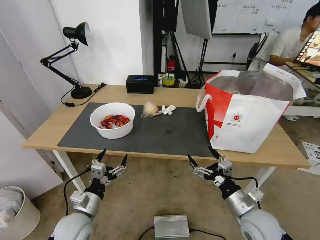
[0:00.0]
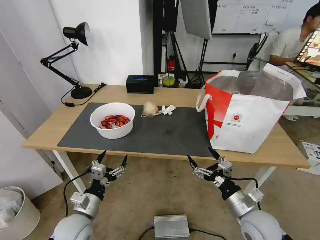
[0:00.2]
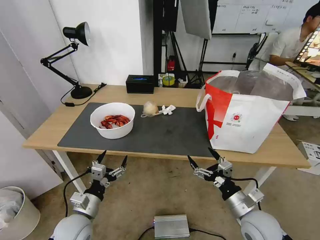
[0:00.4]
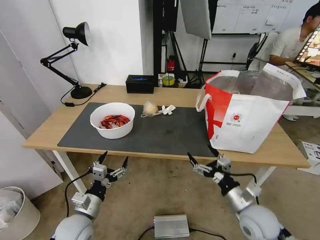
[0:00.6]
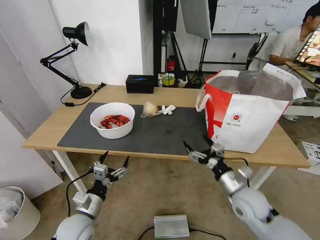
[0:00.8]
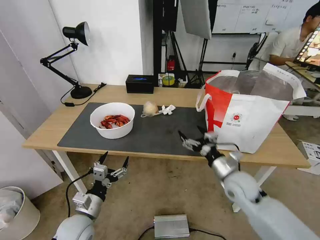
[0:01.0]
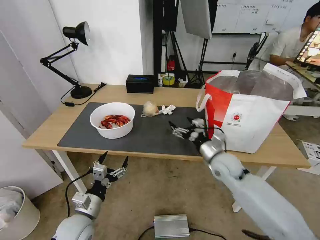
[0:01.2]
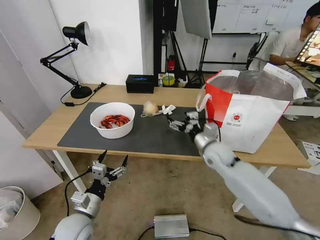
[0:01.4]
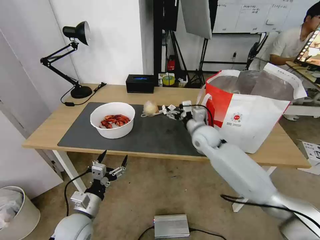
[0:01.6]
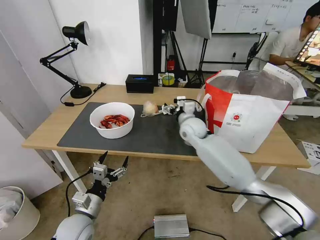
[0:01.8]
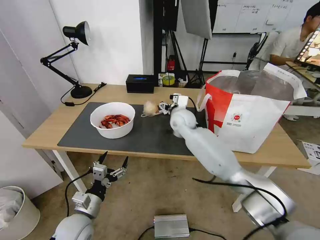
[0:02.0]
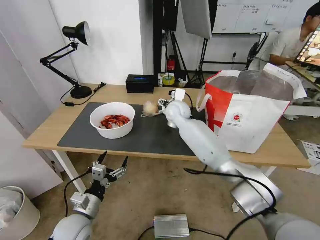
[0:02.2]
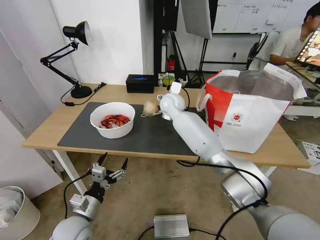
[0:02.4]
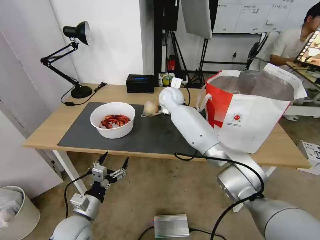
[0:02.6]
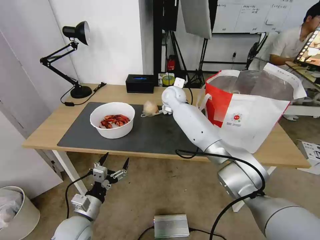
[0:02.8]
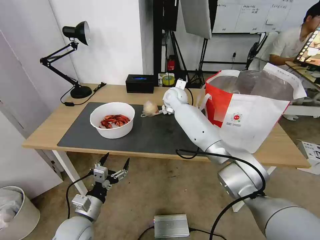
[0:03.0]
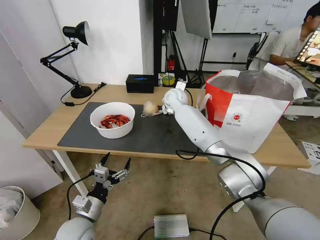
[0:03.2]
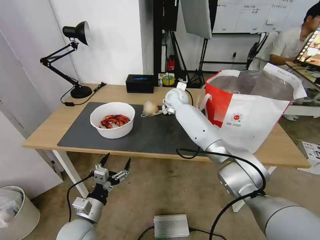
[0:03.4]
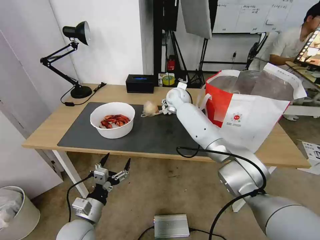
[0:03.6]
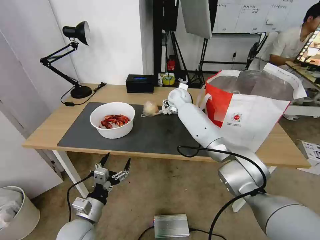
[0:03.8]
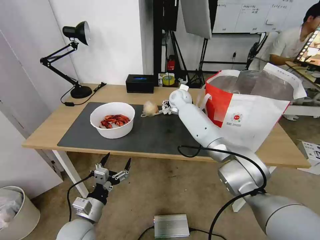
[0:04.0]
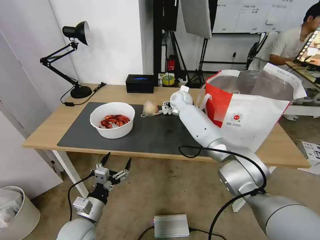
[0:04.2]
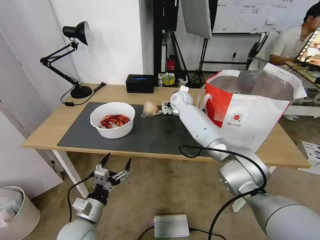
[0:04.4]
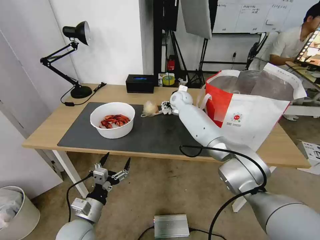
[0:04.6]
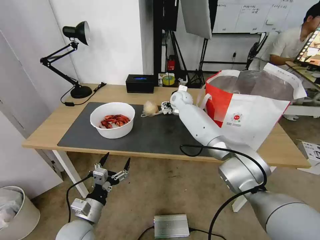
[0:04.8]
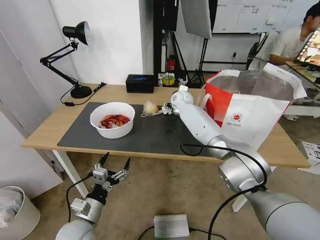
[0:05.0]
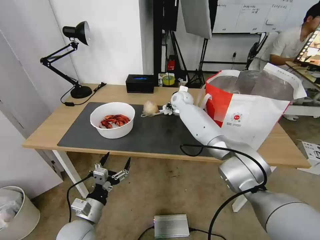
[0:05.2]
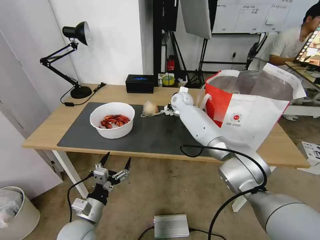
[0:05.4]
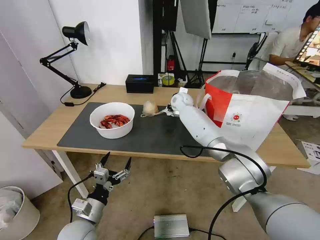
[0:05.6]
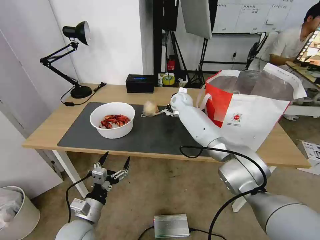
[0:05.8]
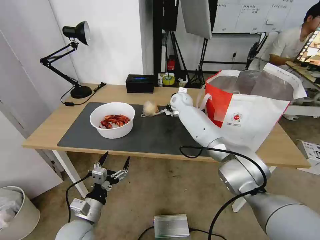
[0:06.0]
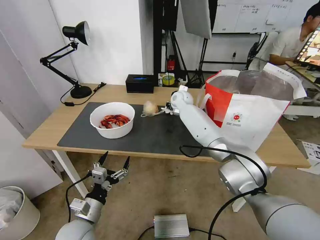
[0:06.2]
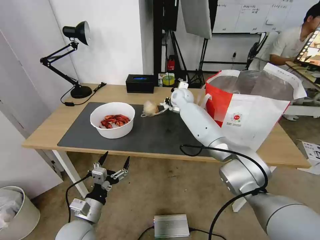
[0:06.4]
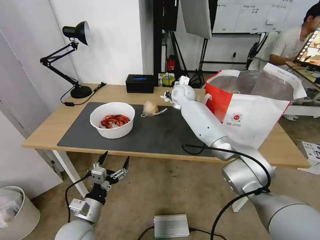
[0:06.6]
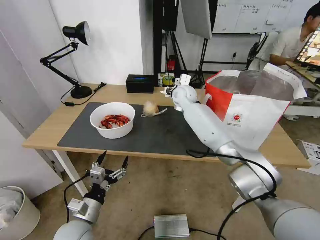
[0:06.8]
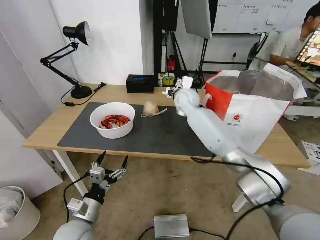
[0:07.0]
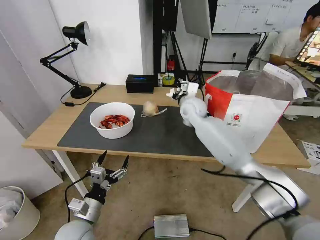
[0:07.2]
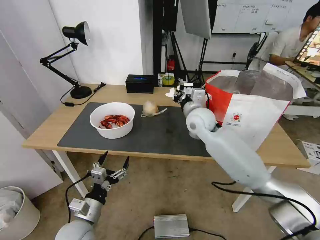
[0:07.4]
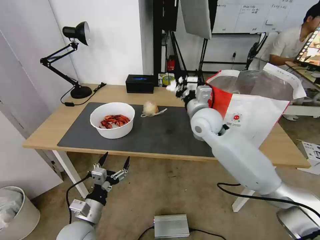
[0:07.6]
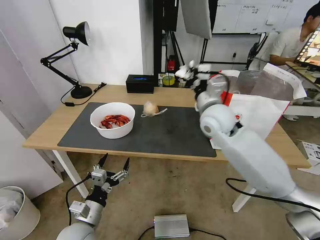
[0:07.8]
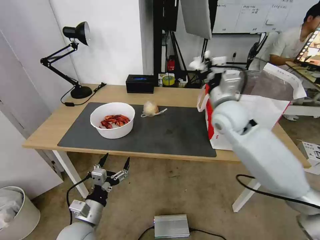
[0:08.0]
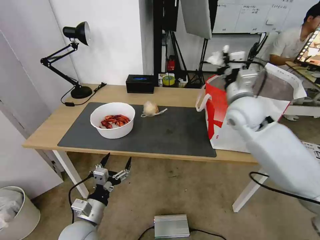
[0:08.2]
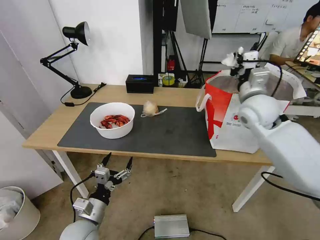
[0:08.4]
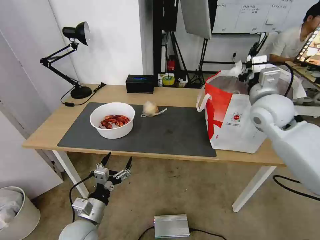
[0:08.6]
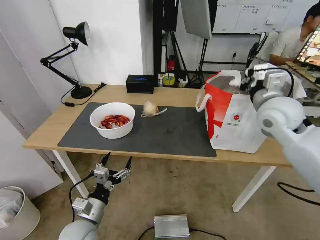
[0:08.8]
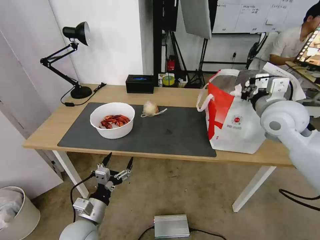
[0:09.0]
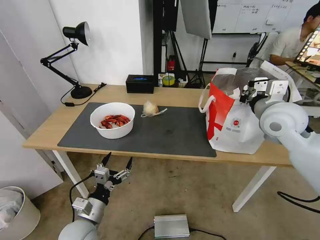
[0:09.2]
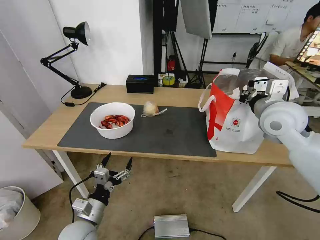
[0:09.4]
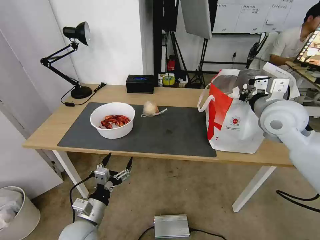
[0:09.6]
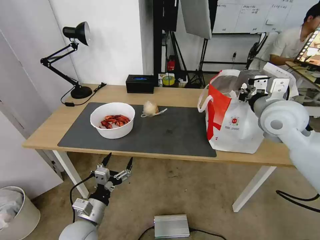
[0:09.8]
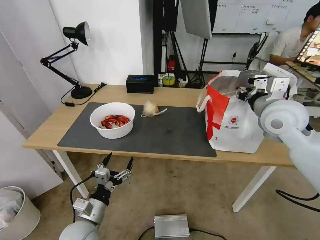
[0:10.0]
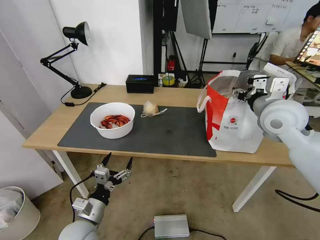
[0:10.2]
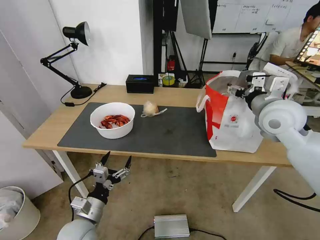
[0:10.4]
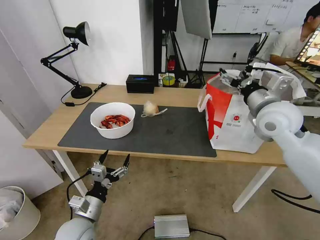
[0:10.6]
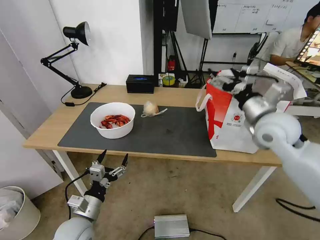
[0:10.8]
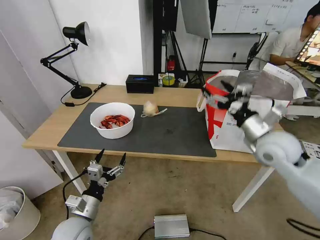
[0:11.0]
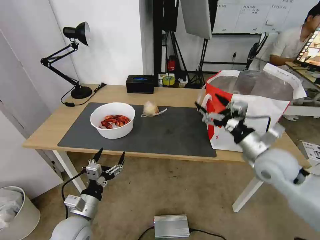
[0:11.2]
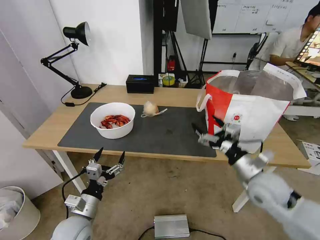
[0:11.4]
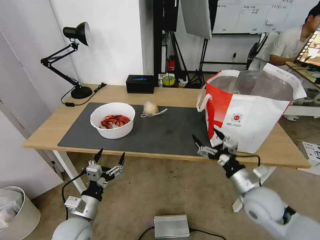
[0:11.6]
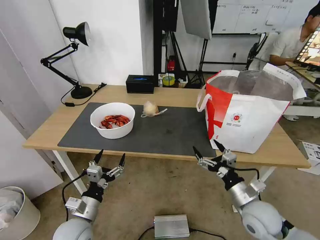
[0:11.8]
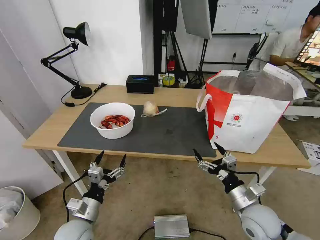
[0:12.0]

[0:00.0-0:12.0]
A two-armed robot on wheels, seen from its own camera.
Task of the whole recording: Pick up the trash from the table and place it into the takeout bag.
0:00.0 to 0:01.6: The right gripper shifts roughly 30 cm forward and to the left.
0:01.6 to 0:03.0: The right gripper goes some 20 cm forward, to the left and upward.
0:03.0 to 0:04.4: The grippers move only a little.
0:04.4 to 0:06.0: The right gripper closes.
0:06.0 to 0:07.6: The right gripper moves backward, about 20 cm.
0:07.6 to 0:09.0: The right gripper is displaced to the right and upward by some 20 cm.
0:09.0 to 0:10.4: The right gripper opens its fingers.
0:10.4 to 0:12.0: The right gripper heads downward and backward, covering some 30 cm.

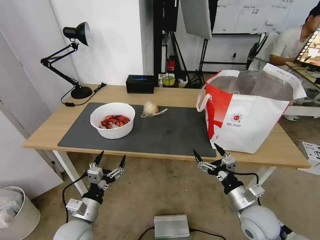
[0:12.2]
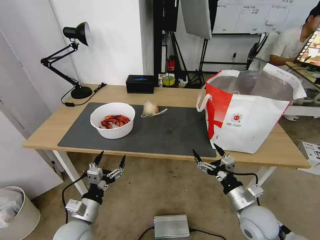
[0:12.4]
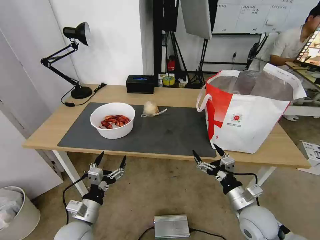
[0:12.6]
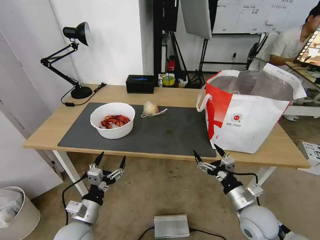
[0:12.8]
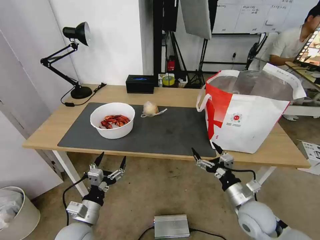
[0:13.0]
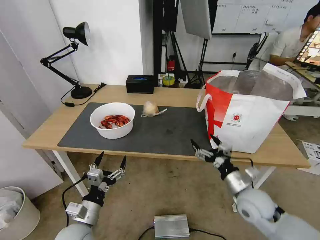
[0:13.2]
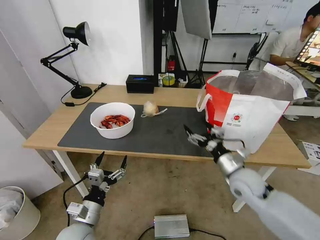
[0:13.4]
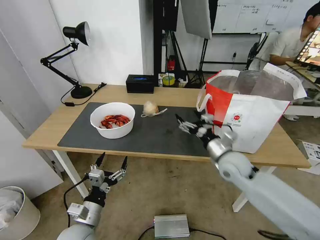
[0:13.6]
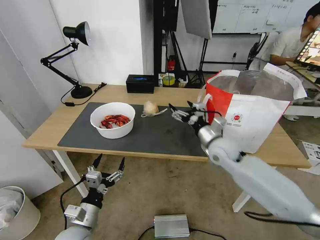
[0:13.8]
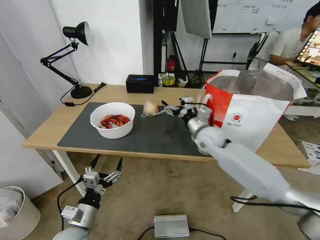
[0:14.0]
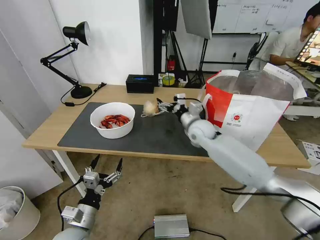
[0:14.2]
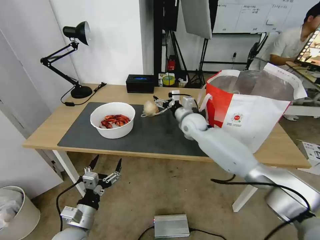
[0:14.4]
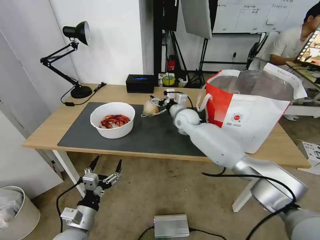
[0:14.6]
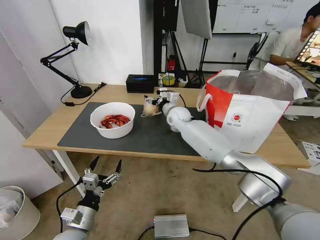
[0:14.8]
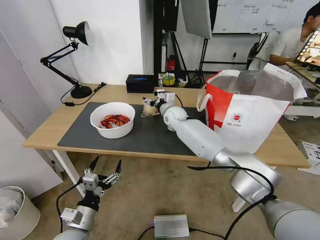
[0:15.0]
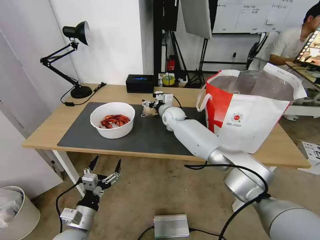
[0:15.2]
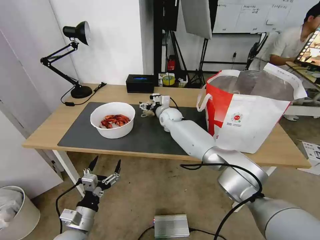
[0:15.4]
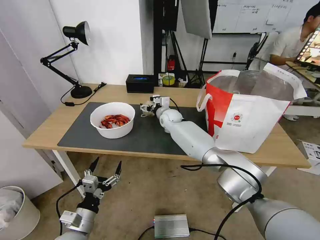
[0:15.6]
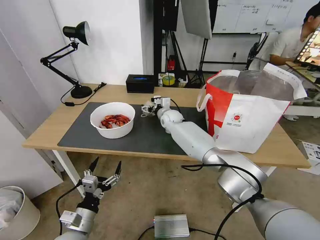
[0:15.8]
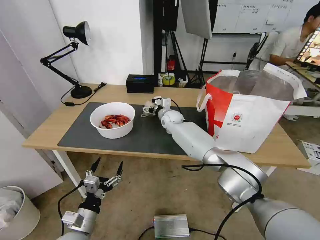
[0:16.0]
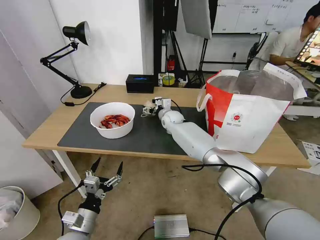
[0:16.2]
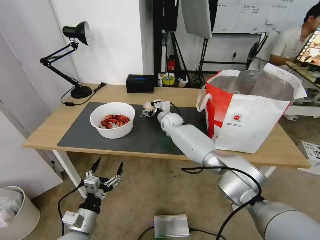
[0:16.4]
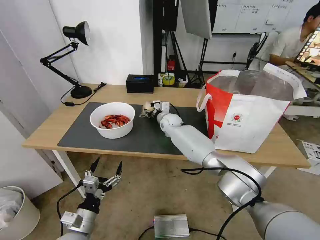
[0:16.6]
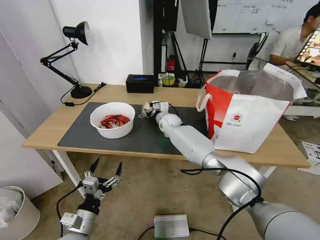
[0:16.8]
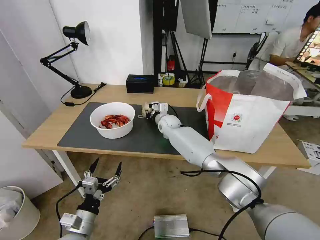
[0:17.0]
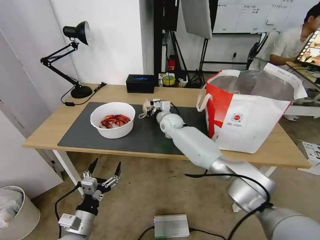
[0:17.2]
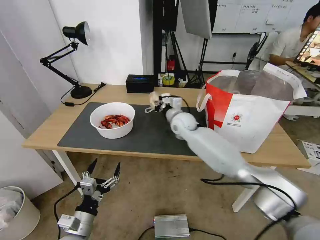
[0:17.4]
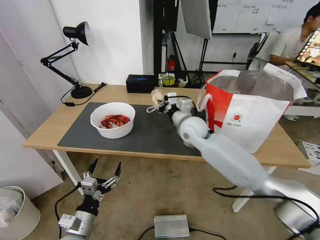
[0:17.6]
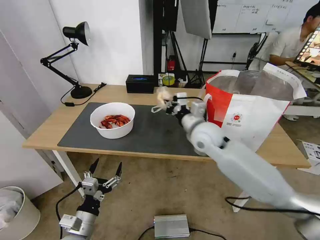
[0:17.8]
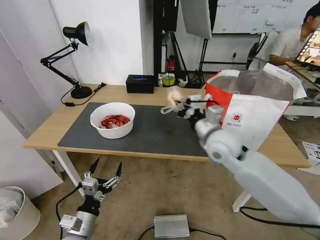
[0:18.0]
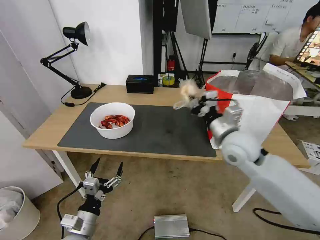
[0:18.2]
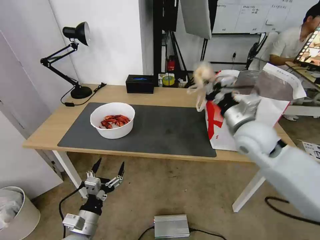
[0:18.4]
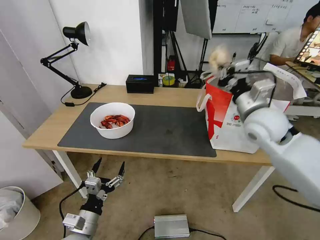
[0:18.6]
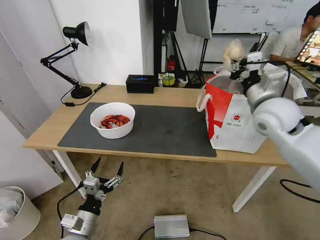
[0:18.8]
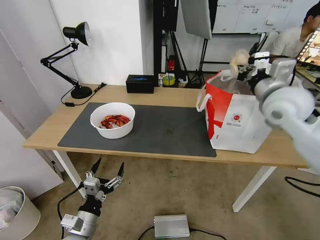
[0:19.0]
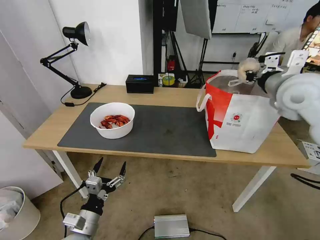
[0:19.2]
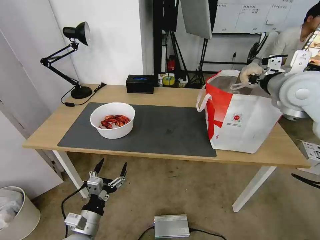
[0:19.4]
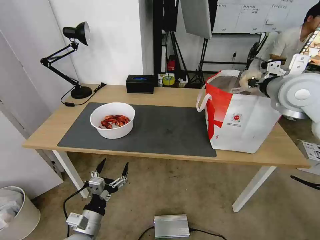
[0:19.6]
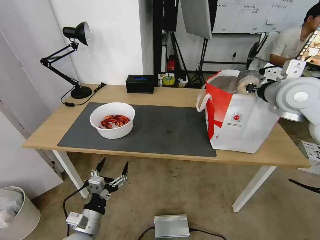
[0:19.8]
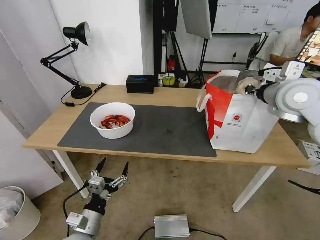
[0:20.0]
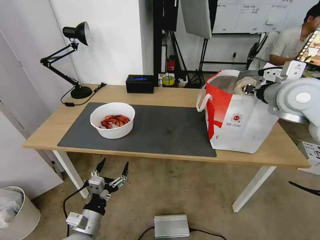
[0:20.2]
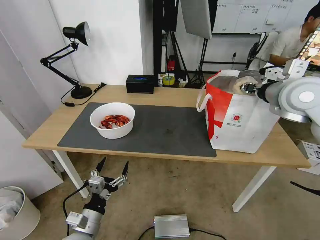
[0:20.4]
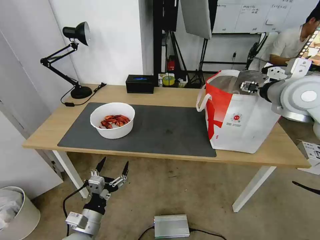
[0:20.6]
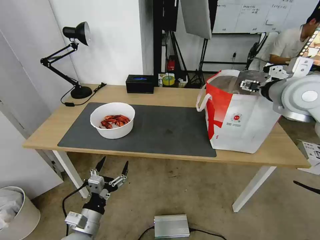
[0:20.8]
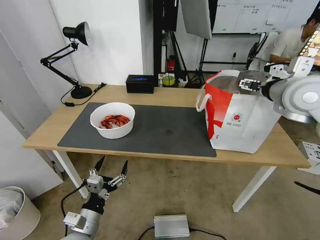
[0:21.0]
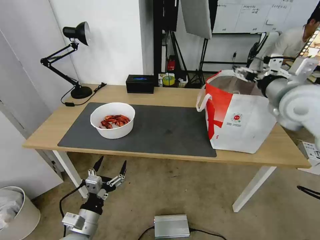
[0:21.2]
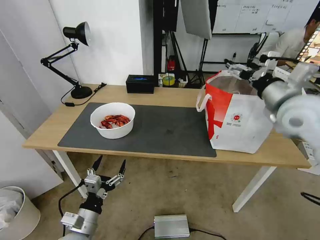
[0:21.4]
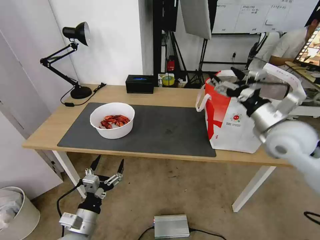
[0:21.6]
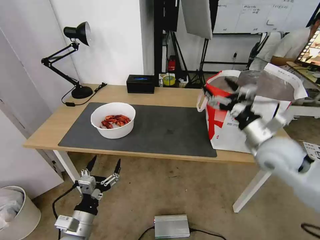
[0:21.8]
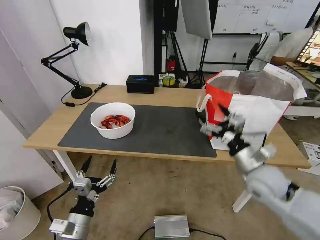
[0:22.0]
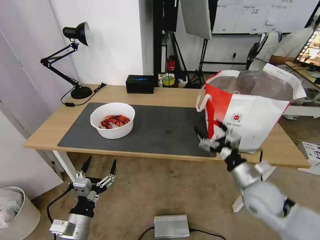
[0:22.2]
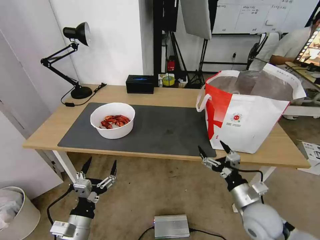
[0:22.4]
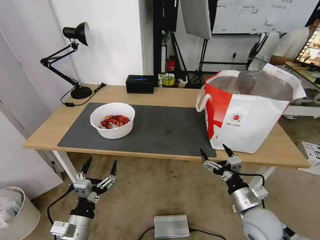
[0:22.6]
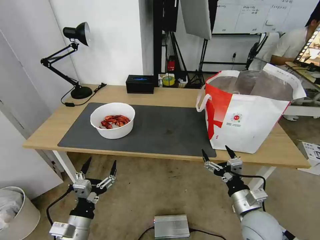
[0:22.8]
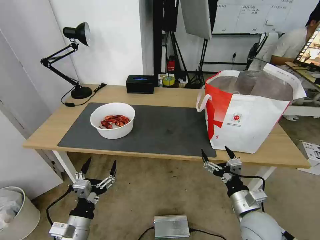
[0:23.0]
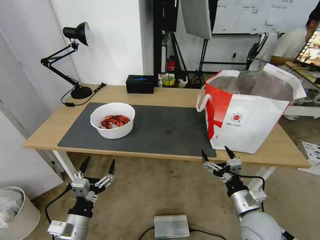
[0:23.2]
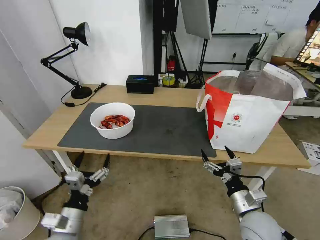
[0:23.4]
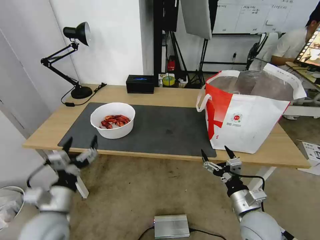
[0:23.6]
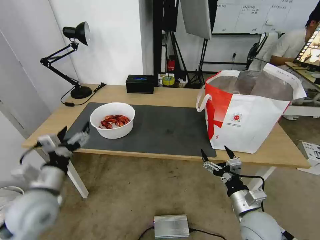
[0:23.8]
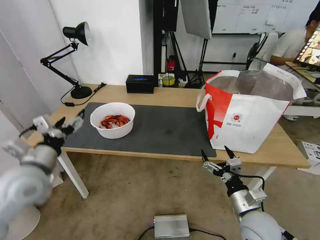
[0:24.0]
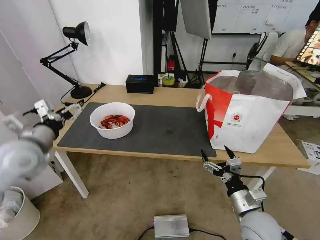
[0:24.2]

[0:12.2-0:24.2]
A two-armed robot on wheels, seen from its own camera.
Task of the whole recording: Pick up the trash from the table and place it into the takeout bag.
0:12.2 to 0:13.8: The right gripper travels forward and upward by roughly 20 cm.
0:13.8 to 0:15.2: The right gripper shifts about 25 cm forward and to the left.
0:15.2 to 0:16.6: The right gripper closes its fingers.
0:16.6 to 0:18.2: The right gripper moves backward, to the right and upward, about 35 cm, and closes its fingers.
0:18.2 to 0:19.8: The right gripper is displaced upward, to the right and forward by some 20 cm.
0:19.8 to 0:21.2: The right gripper opens up.
0:21.2 to 0:22.6: The right gripper is displaced downward and backward by approximately 35 cm.
0:22.6 to 0:24.2: The left gripper shifts approximately 30 cm upward, forward and to the left.
